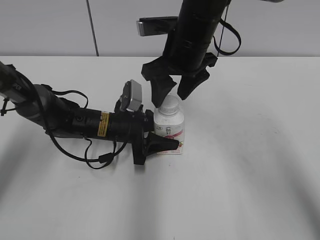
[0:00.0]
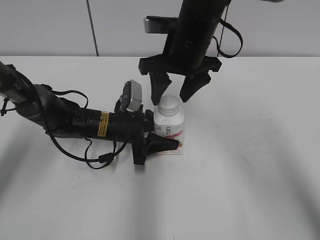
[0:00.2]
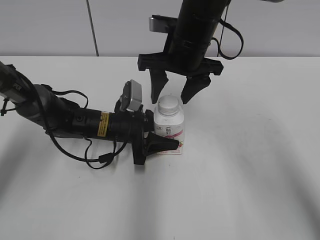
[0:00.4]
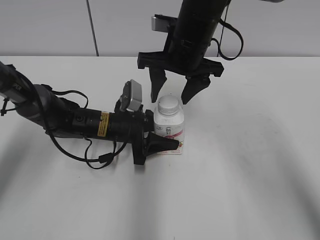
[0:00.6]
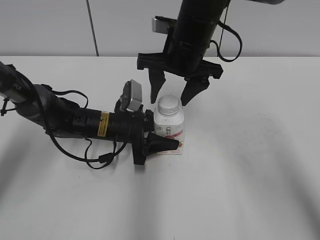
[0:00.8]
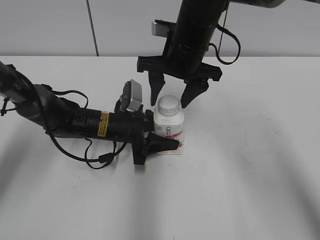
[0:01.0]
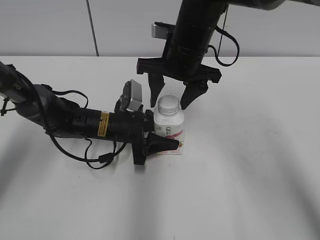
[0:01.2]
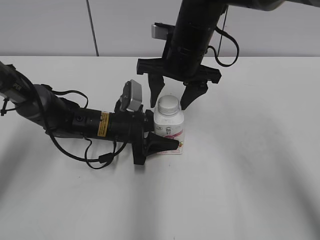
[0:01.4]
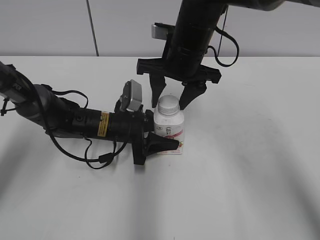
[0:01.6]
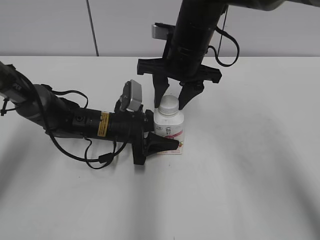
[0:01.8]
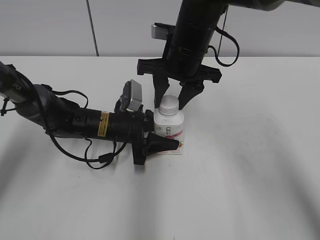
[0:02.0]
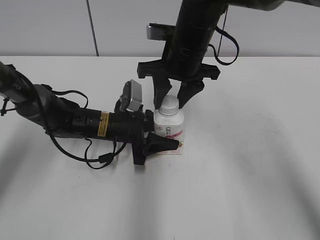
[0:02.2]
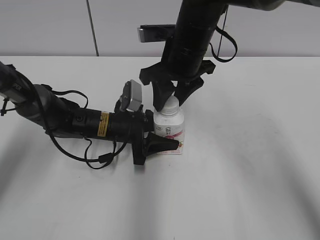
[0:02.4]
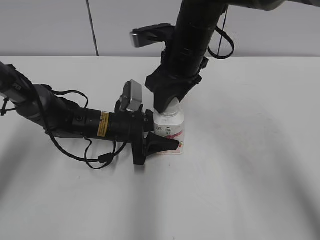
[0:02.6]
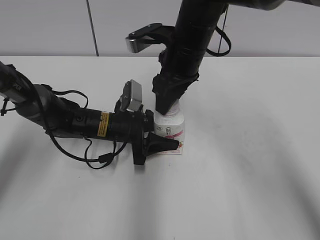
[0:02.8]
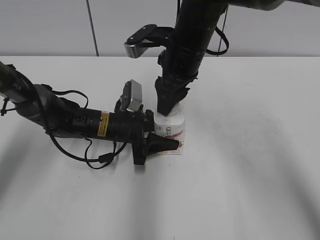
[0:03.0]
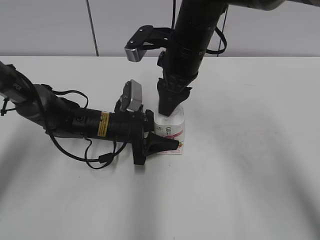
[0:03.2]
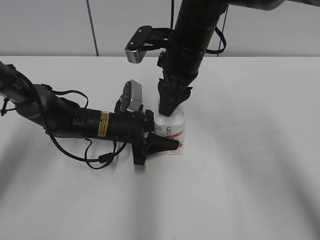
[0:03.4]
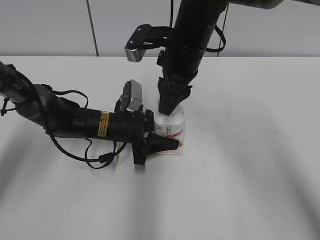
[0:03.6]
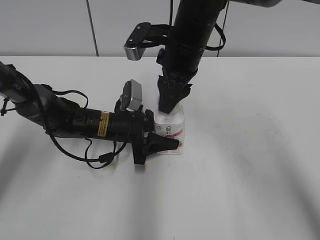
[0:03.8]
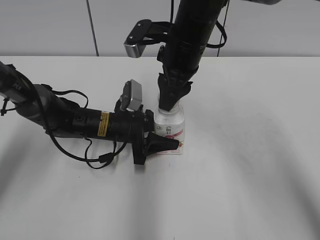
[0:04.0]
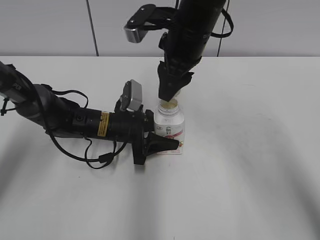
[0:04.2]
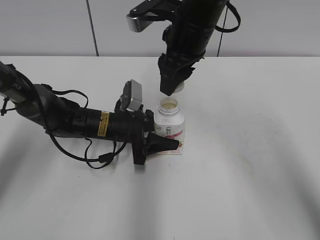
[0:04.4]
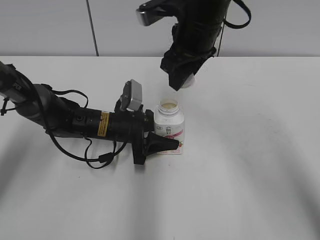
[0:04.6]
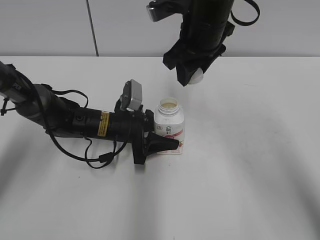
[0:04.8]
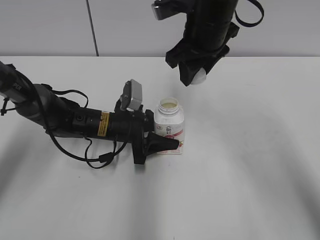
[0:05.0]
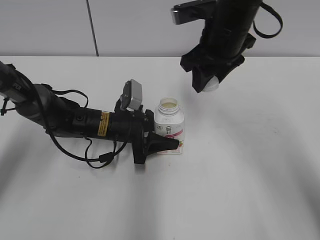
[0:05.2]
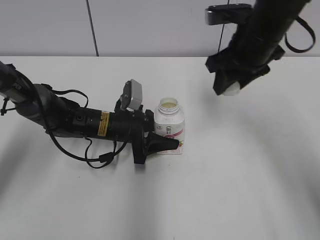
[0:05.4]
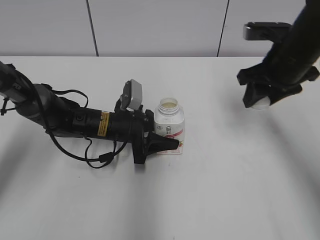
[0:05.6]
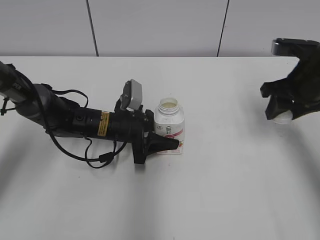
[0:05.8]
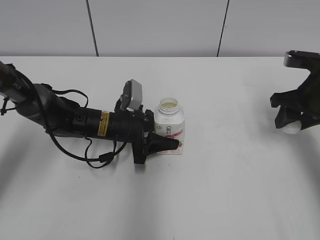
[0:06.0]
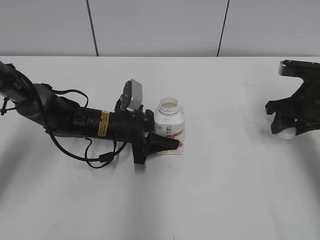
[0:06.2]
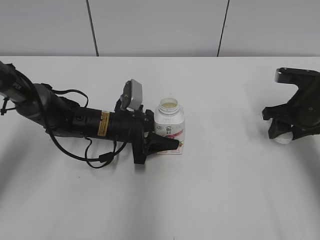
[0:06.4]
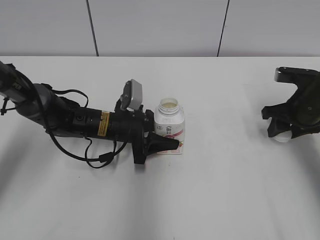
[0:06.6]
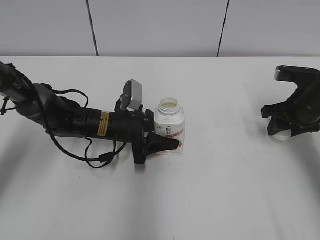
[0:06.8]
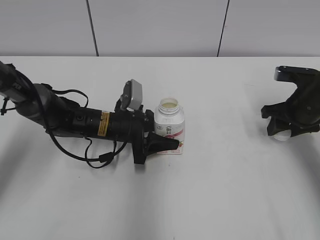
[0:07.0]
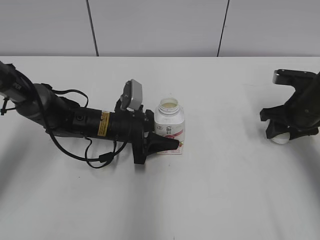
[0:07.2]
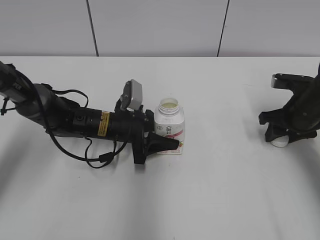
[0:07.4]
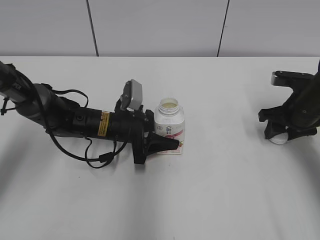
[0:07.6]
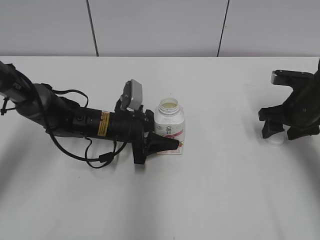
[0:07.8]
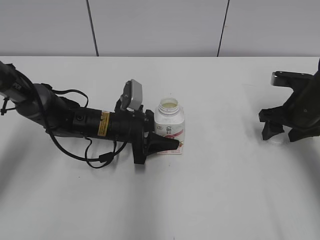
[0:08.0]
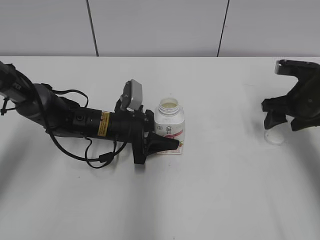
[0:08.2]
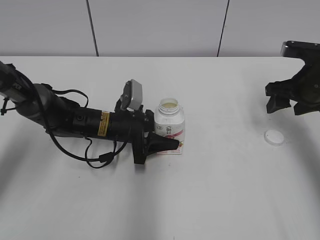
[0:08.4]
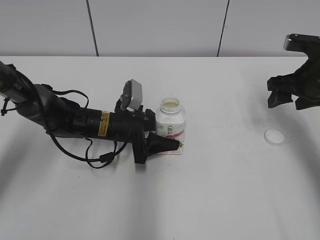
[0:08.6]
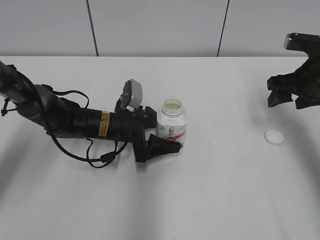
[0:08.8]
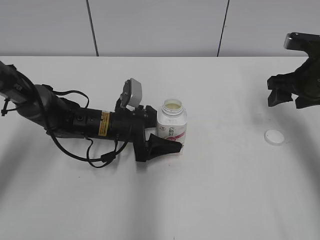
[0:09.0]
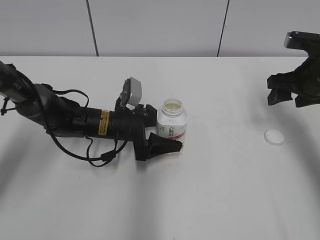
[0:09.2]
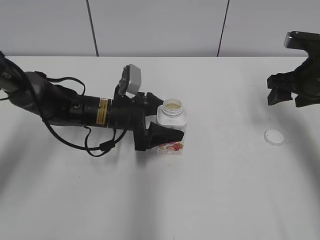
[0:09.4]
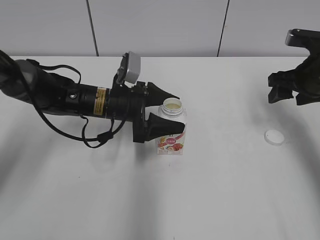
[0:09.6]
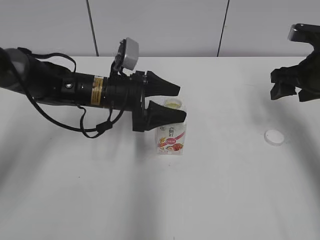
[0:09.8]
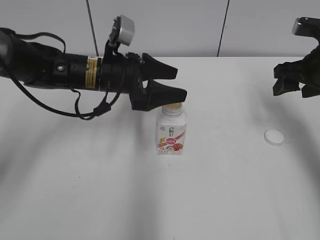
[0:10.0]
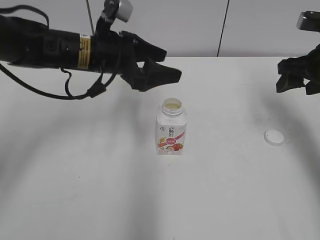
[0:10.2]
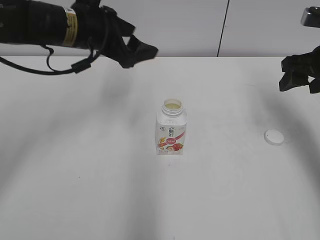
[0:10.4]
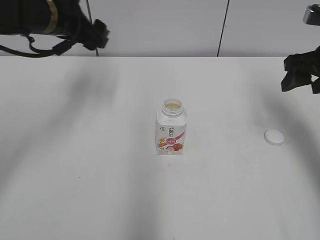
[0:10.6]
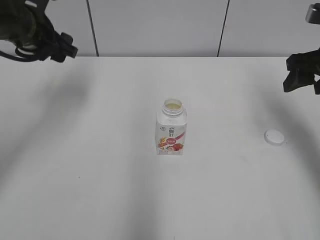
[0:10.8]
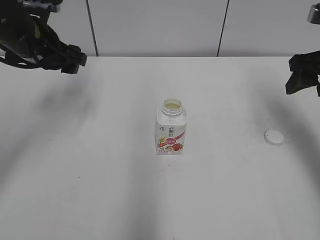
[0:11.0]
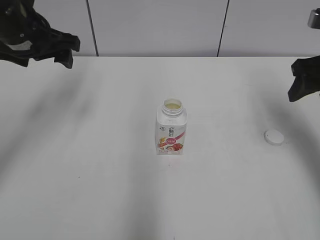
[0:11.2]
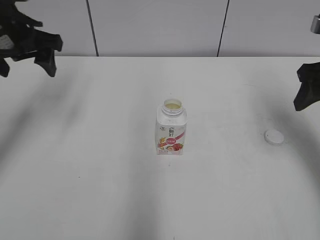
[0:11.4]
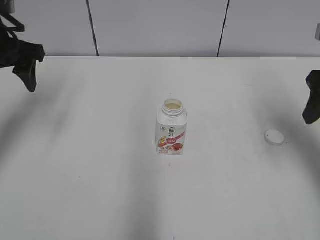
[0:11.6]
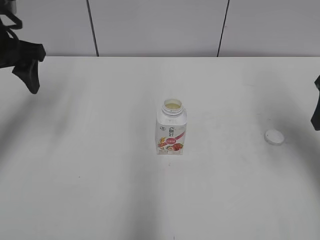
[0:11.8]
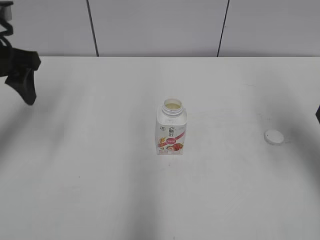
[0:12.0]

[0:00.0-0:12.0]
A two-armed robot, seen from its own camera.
Step, 0:04.4 to 0:08.0: Place the bottle cap on the right.
0:03.0 to 0:04.4: The grippers make only small movements.
0:04.4 to 0:06.0: The right gripper goes some 25 cm to the right.
0:06.0 to 0:07.6: The right gripper travels downward by some 5 cm.
0:07.6 to 0:09.0: The right gripper shifts some 5 cm upward, and opens its fingers. Meanwhile the left gripper opens up.
0:09.0 to 0:10.4: The right gripper goes roughly 5 cm upward. Meanwhile the left gripper heads upward, covering some 20 cm.
0:10.4 to 0:12.0: The right gripper is displaced backward and upward by approximately 10 cm, while the left gripper heads to the left and backward, covering some 15 cm.

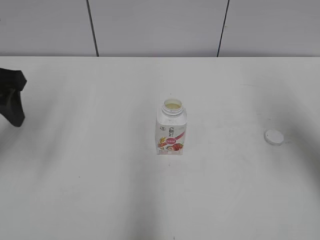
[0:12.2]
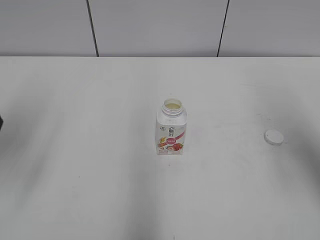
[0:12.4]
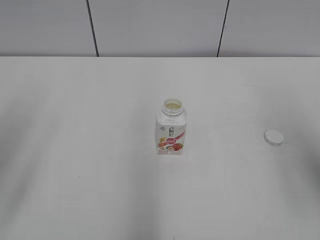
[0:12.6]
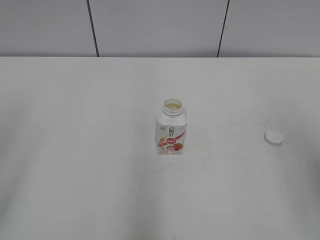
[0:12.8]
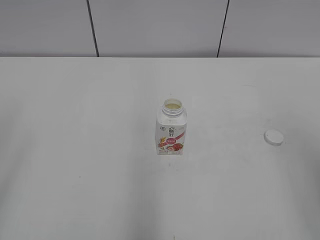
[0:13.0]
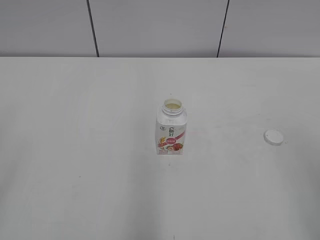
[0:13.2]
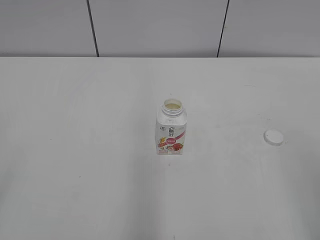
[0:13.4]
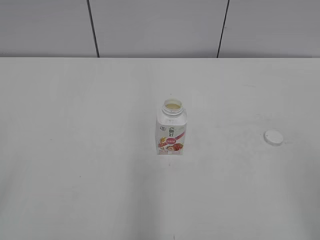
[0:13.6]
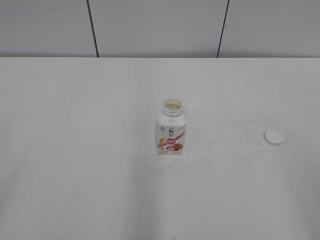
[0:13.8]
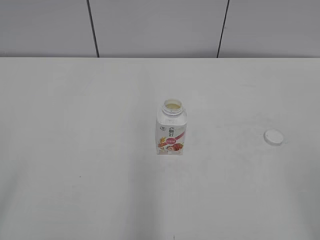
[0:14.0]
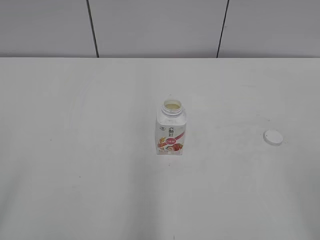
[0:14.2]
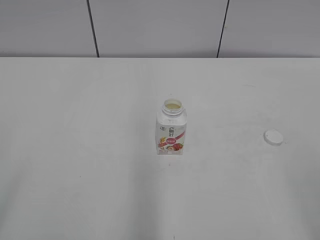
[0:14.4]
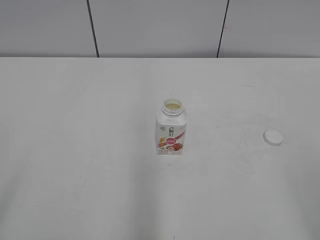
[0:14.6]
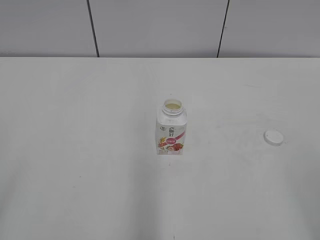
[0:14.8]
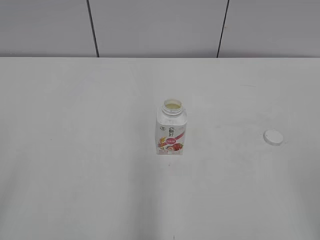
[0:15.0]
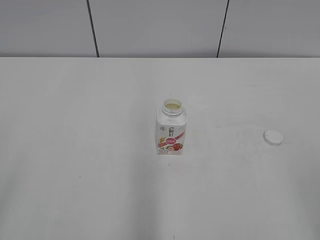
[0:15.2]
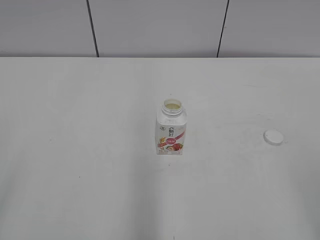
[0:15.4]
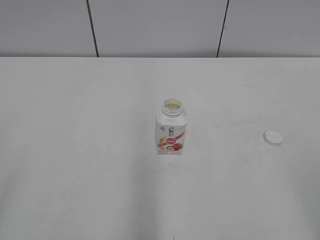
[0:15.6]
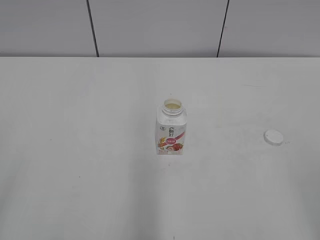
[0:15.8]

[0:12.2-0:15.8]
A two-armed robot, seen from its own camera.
0:12.2 to 0:14.0: Both grippers travel together backward, approximately 25 cm.
